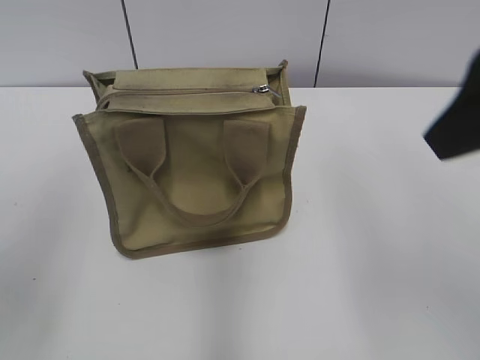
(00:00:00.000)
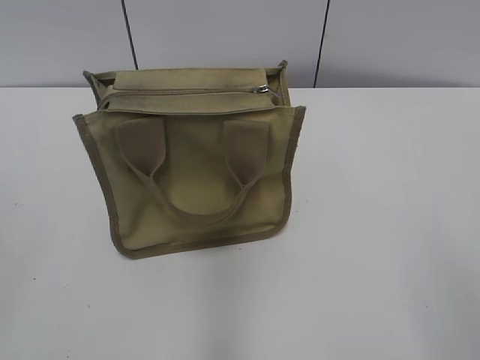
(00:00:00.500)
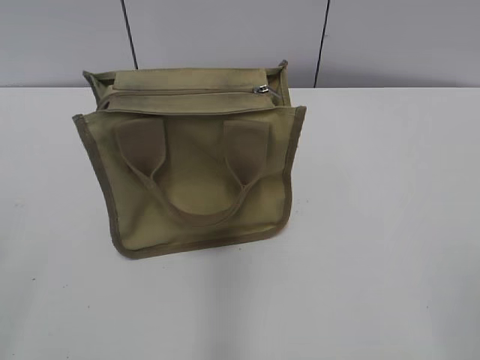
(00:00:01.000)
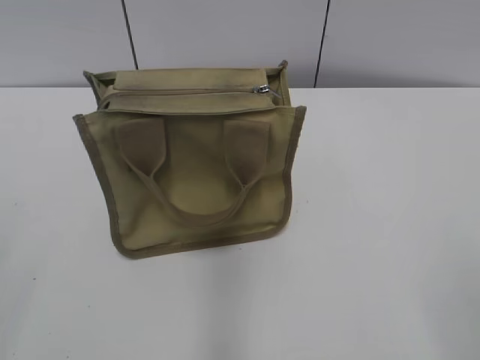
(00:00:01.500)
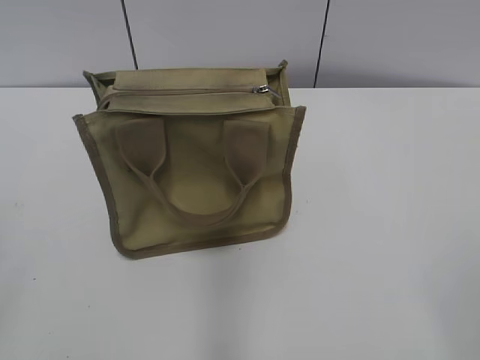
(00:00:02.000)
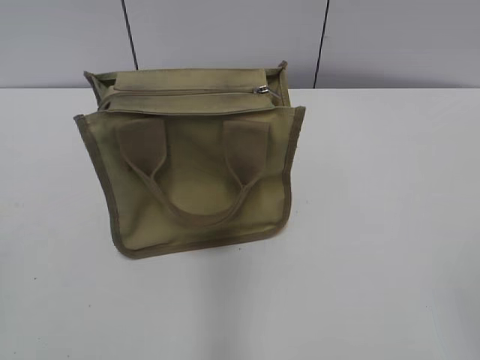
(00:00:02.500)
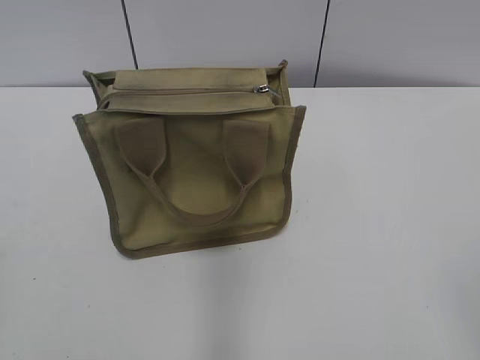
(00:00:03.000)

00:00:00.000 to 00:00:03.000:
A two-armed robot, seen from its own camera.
00:00:00.000 to 00:00:01.500: The right gripper shifts some 25 cm backward, downward and to the right.

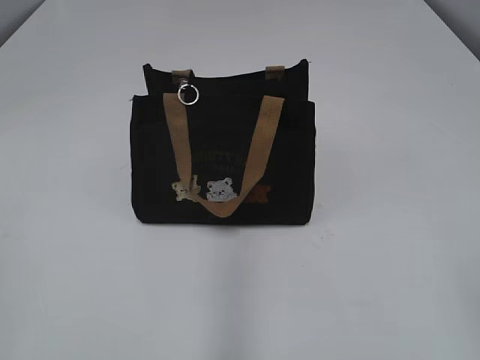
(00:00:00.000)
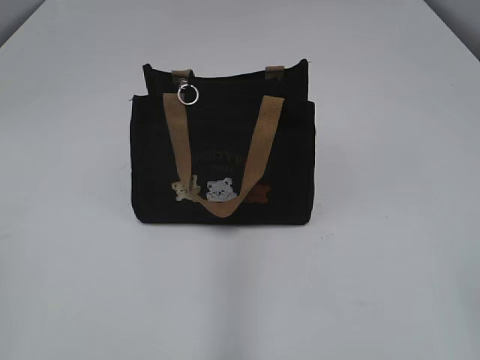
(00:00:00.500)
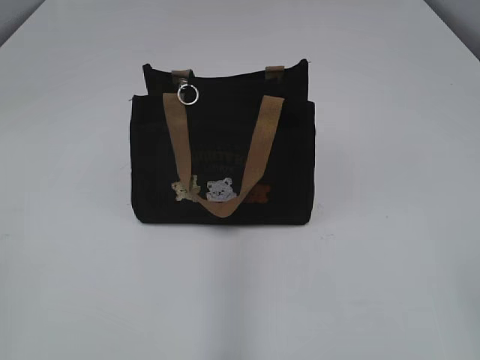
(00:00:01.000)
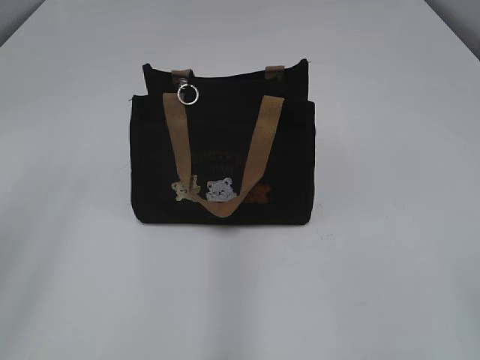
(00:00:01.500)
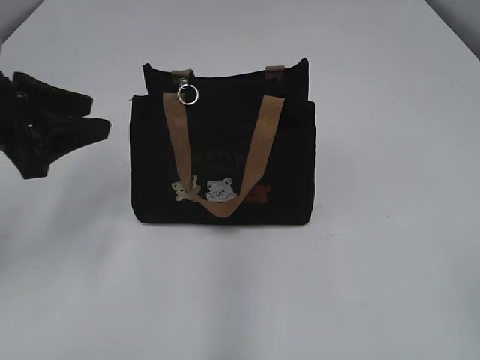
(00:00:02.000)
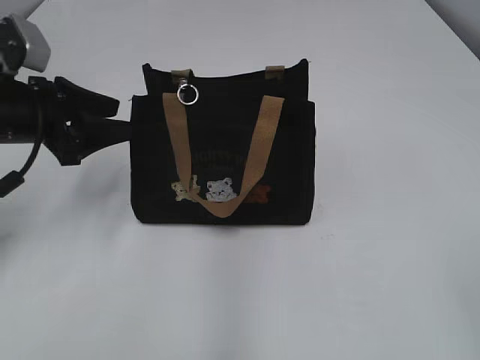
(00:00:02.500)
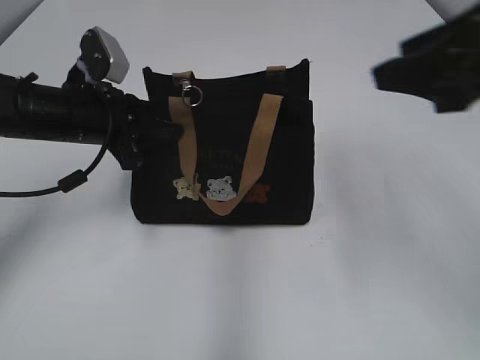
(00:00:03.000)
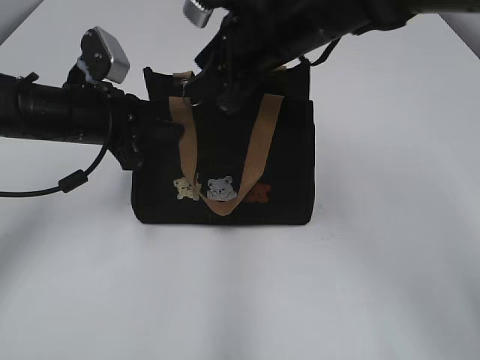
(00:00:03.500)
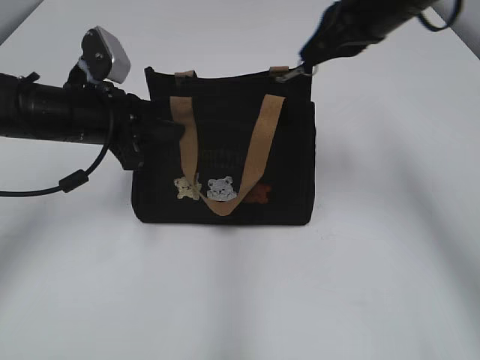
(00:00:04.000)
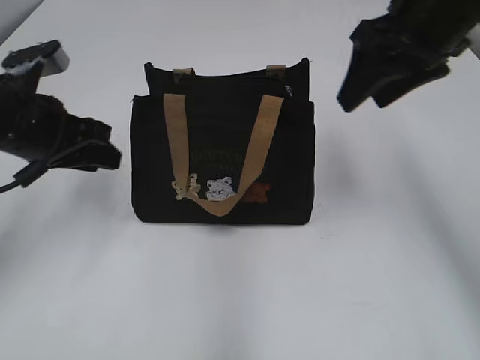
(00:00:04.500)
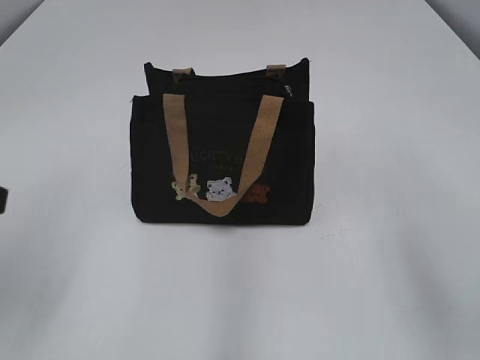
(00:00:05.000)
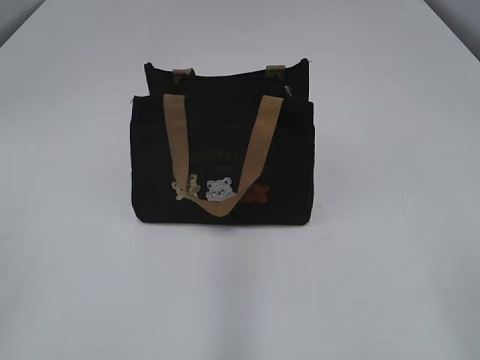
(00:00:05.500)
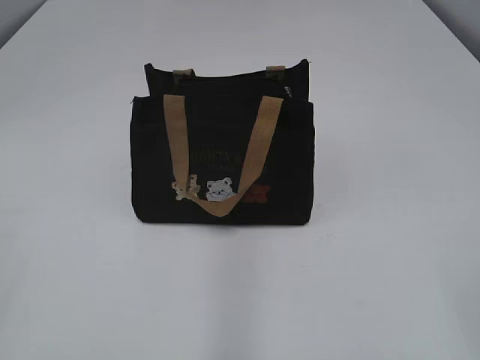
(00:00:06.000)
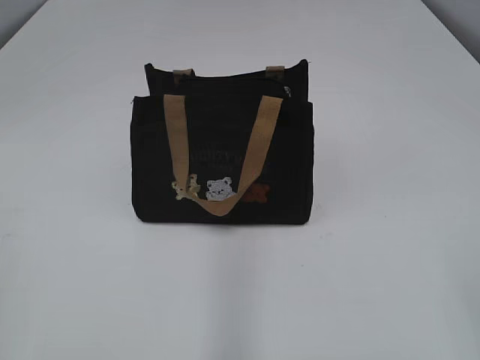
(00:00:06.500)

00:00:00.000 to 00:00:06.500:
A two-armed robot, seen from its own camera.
Step, 00:00:00.000 to 00:00:04.000: Pull open the zipper with your right hand.
00:00:02.000 to 00:00:04.500: The left gripper is displaced forward, downward and to the right by roughly 15 cm, and closes and opens again. Meanwhile the right gripper goes roughly 35 cm forward, and closes, then opens again.
00:00:04.500 to 00:00:06.500: Both grippers travel together backward, some 35 cm.

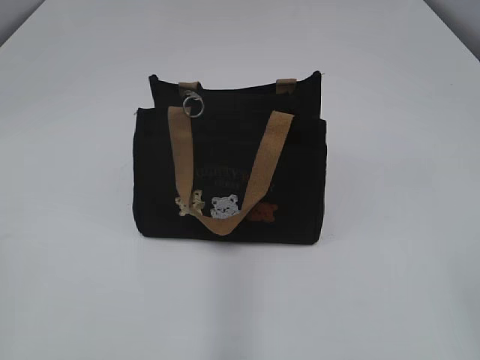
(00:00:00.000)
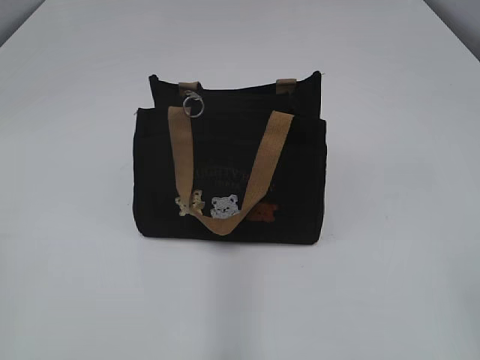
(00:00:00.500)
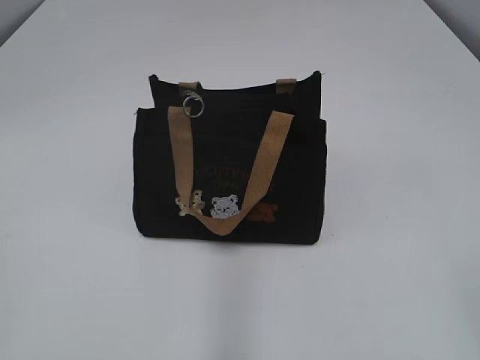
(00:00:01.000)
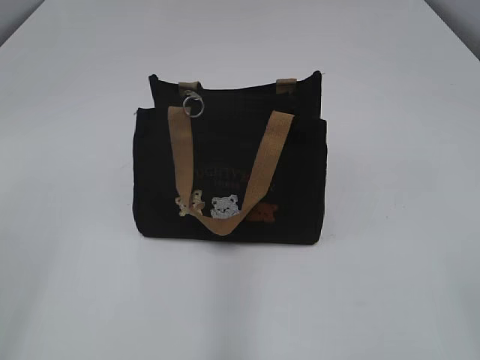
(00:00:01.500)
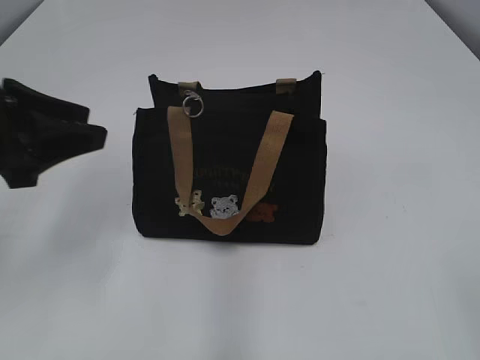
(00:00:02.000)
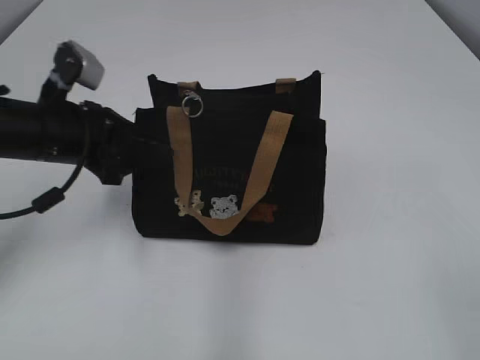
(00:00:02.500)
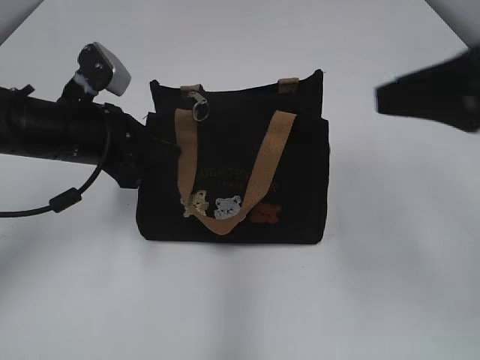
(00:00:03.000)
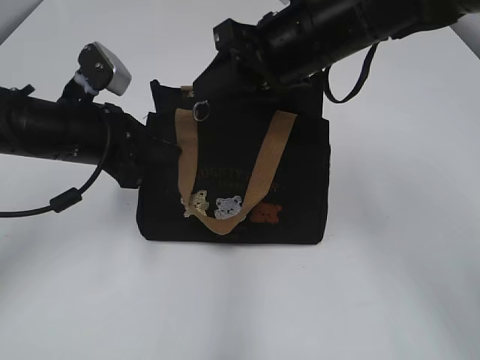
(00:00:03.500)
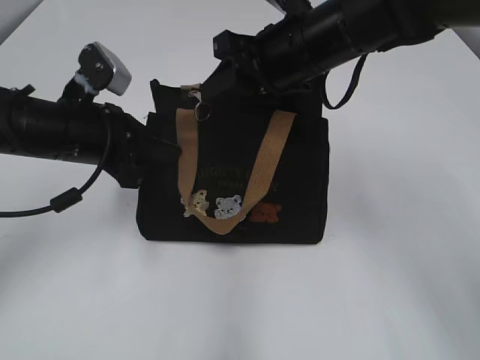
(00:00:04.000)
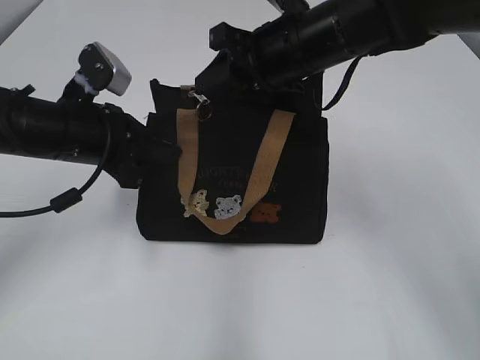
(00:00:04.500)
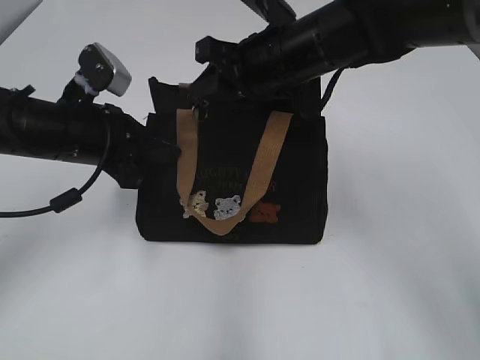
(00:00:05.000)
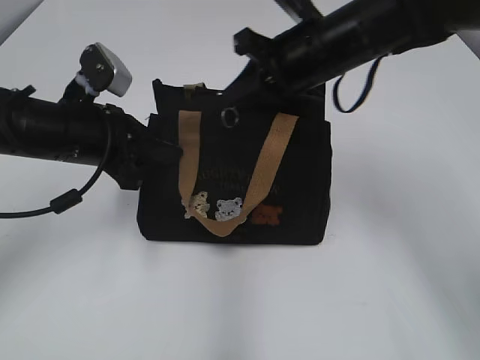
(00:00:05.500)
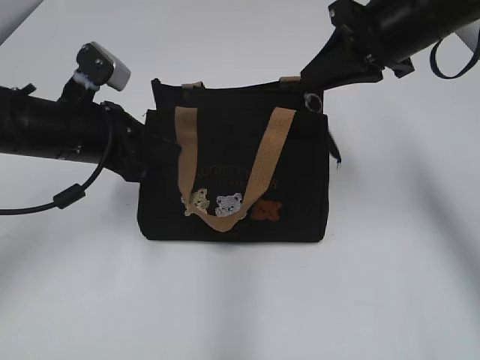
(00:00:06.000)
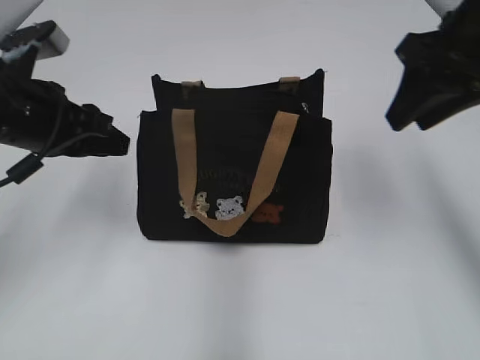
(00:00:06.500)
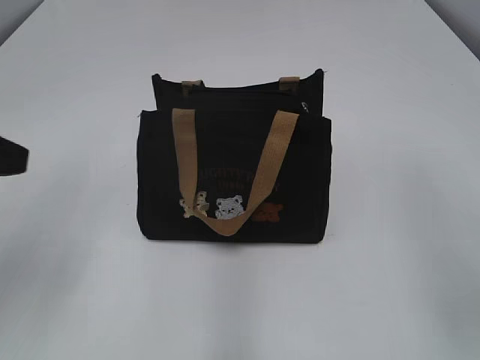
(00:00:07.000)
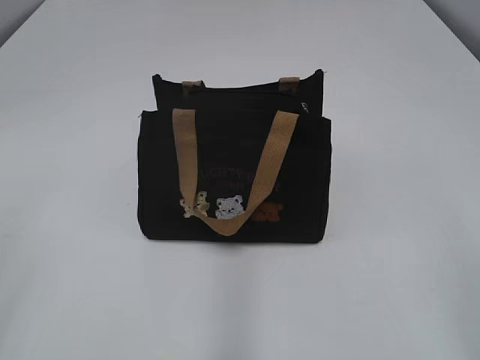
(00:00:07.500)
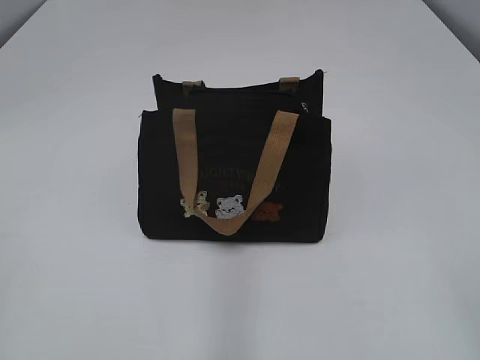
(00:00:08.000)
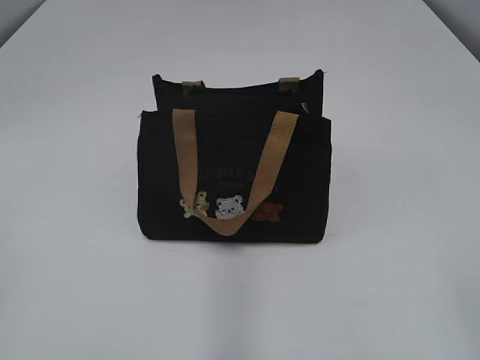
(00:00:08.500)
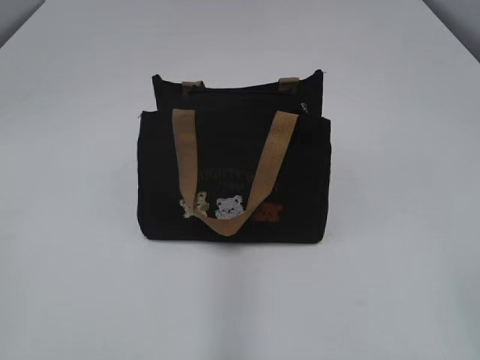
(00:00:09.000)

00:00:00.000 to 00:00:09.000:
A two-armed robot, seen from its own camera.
Step, 00:00:00.000 to 00:00:05.500: Pull open the zipper with your right hand.
00:00:02.000 to 00:00:04.500: The right gripper moves forward and to the left, approximately 40 cm, while the left gripper shifts roughly 15 cm forward, downward and to the right, and closes its fingers.
00:00:04.500 to 00:00:07.000: The left gripper travels backward, upward and to the left by approximately 15 cm, and opens up; the right gripper goes approximately 30 cm backward and to the right, and closes, then opens again.
00:00:07.000 to 00:00:09.000: The left gripper goes about 20 cm backward.

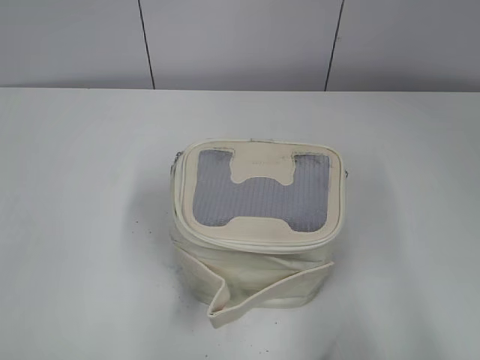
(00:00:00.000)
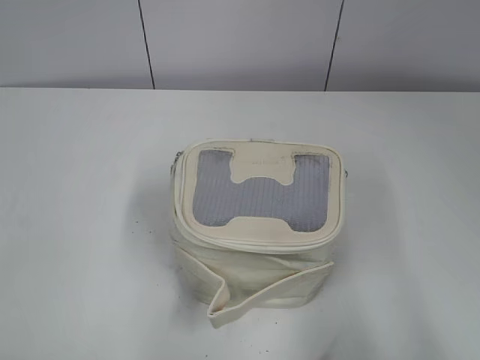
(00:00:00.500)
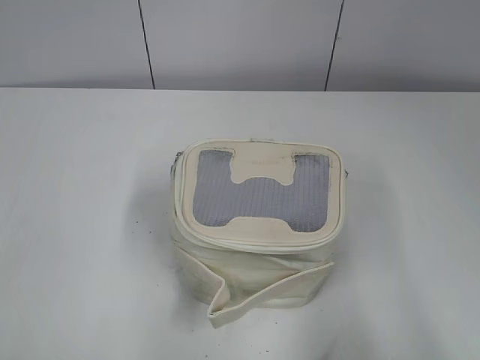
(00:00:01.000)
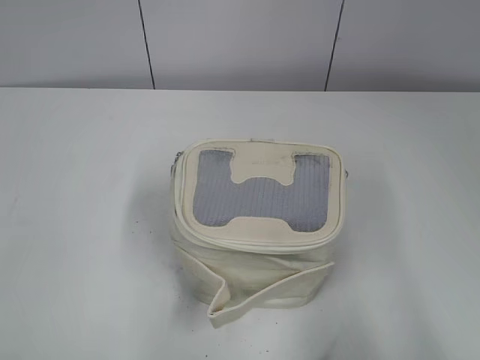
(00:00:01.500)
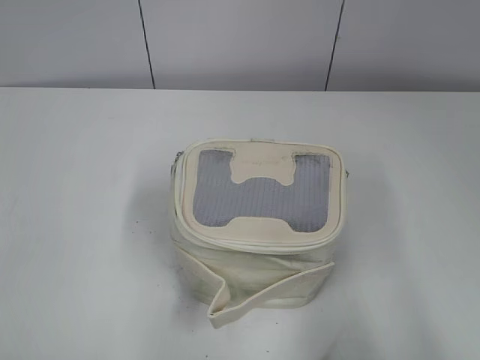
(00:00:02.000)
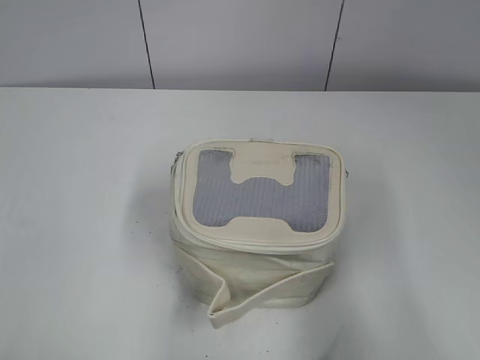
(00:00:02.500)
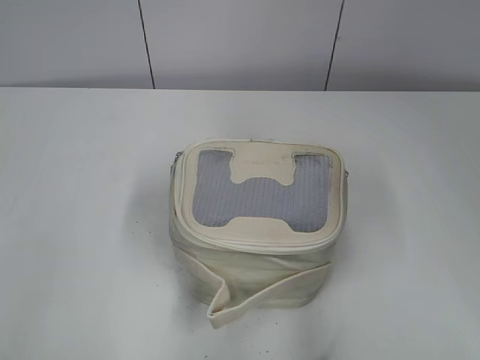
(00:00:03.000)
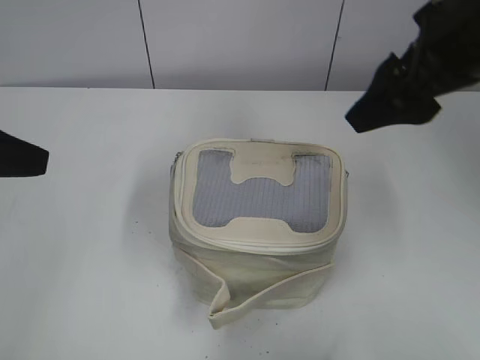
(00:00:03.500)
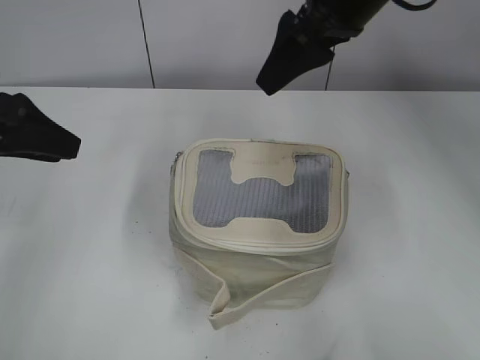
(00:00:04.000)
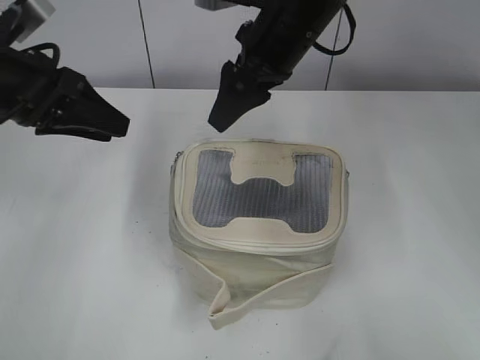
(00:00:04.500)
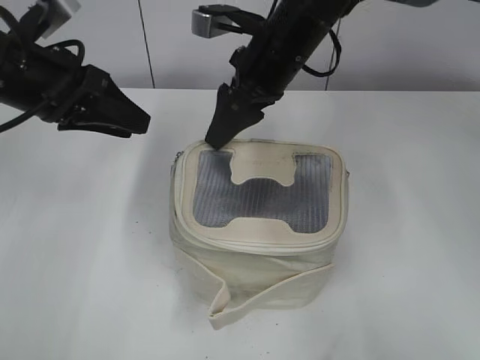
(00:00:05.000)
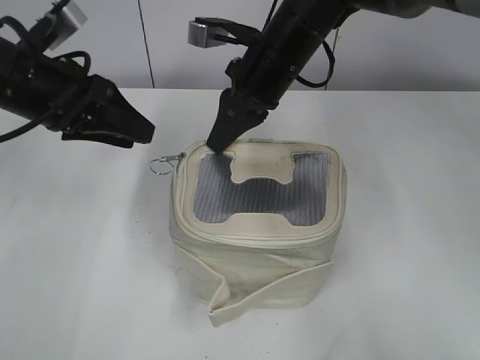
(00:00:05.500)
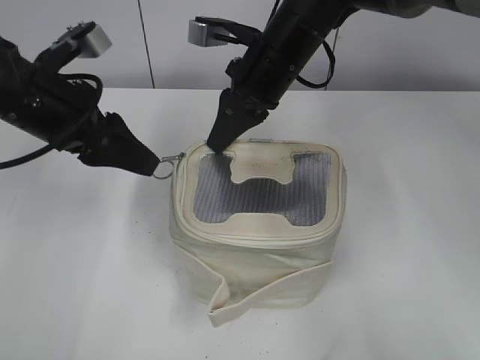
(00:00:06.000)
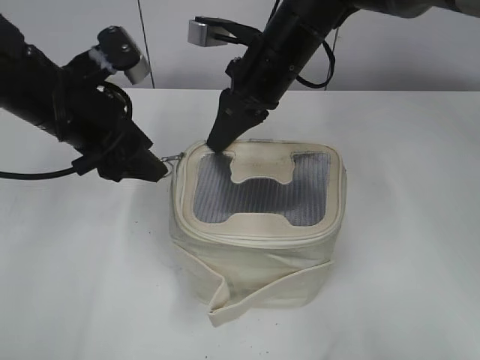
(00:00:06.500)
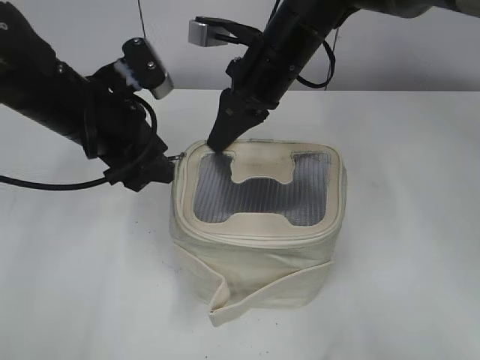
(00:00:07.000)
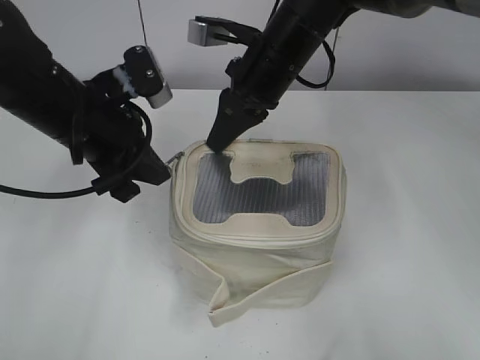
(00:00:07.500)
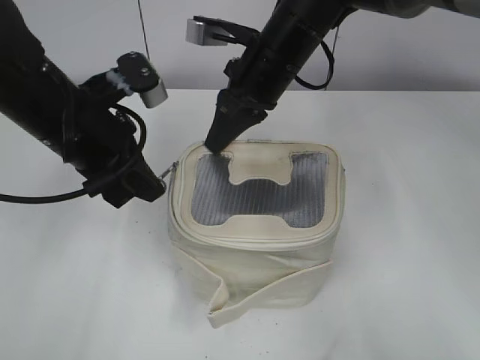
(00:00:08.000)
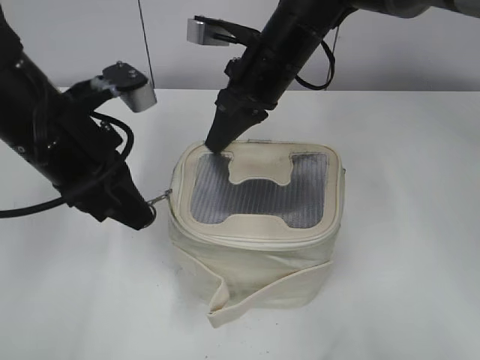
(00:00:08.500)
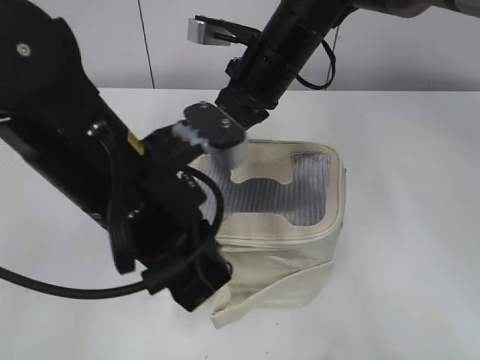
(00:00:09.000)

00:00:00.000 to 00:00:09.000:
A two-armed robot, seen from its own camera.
00:00:02.000 to 00:00:04.500: The right gripper heads forward and to the left, covering approximately 50 cm. The left gripper goes about 30 cm forward.
00:00:04.500 to 00:00:07.000: The left gripper shifts approximately 10 cm to the right, while the right gripper closes up.
00:00:07.000 to 00:00:09.000: The left gripper moves backward and to the right, about 15 cm, and closes its fingers.
